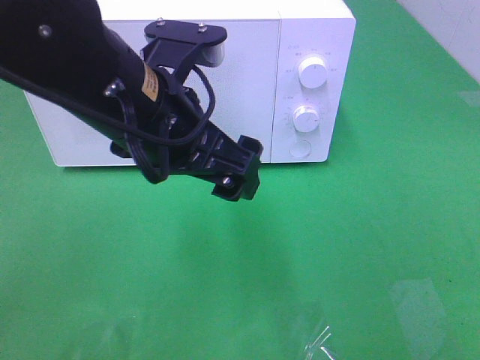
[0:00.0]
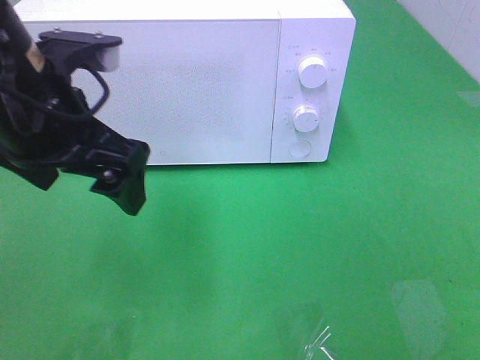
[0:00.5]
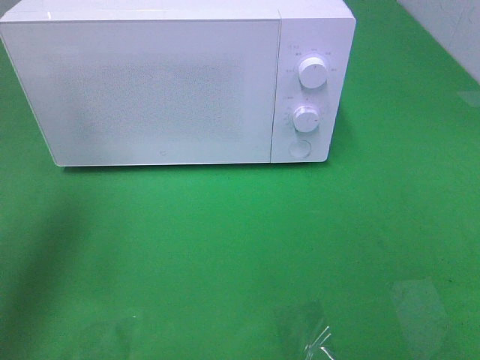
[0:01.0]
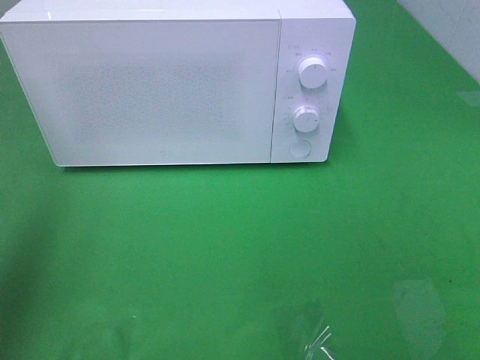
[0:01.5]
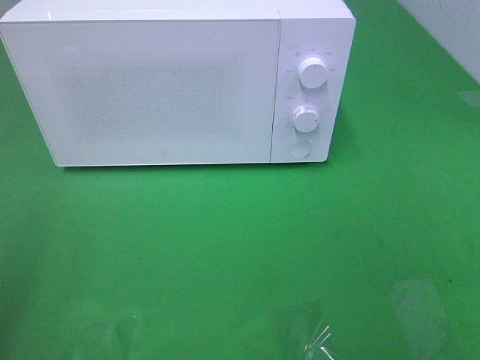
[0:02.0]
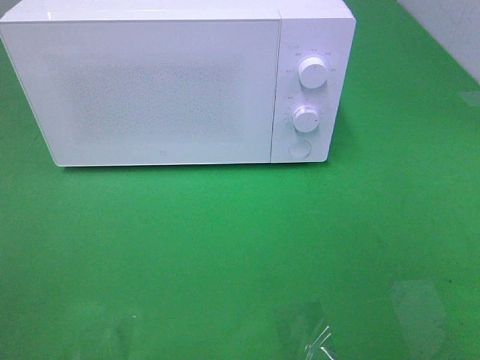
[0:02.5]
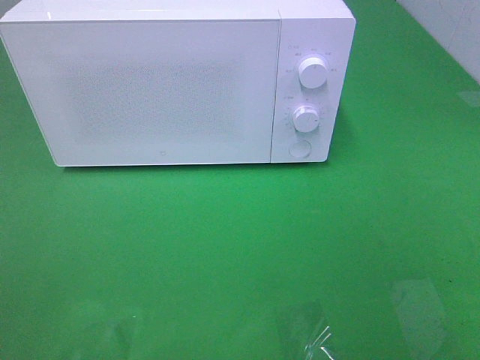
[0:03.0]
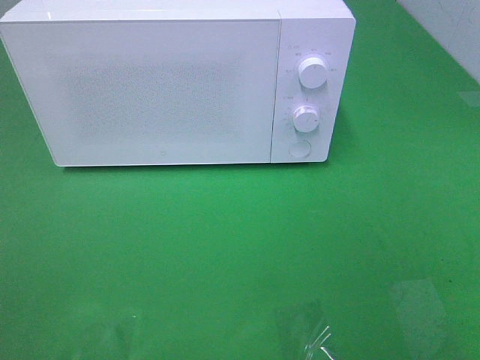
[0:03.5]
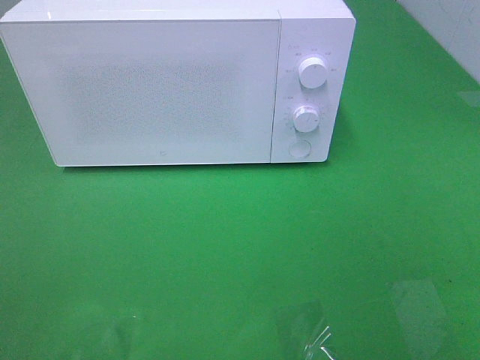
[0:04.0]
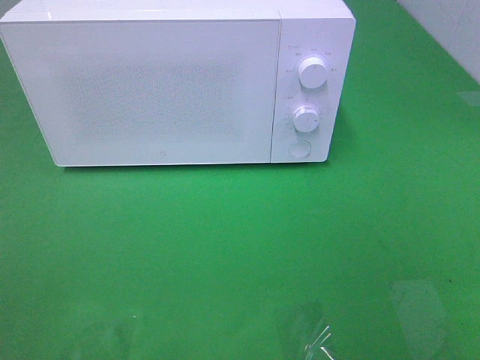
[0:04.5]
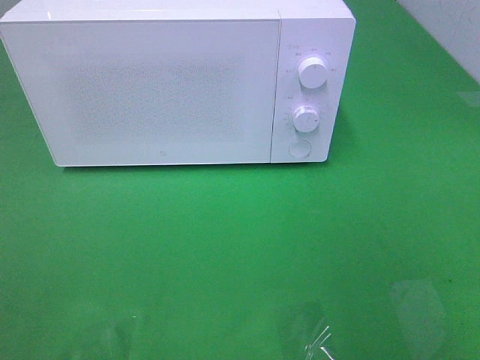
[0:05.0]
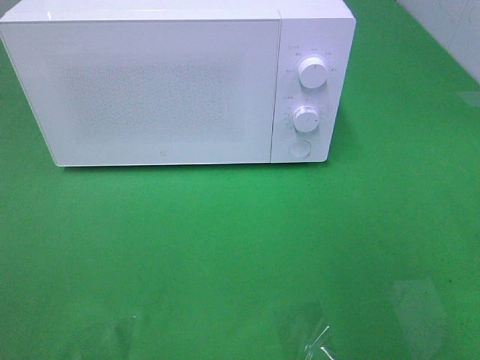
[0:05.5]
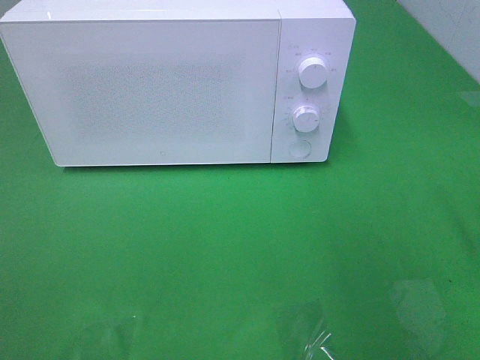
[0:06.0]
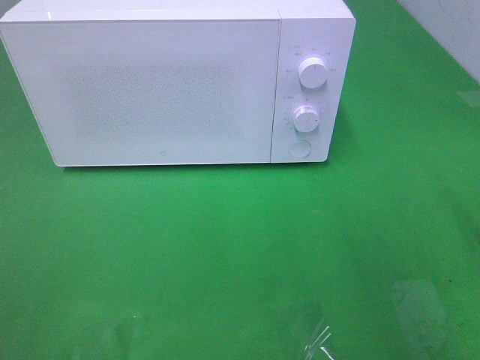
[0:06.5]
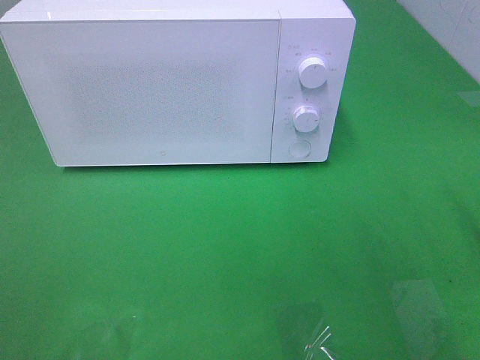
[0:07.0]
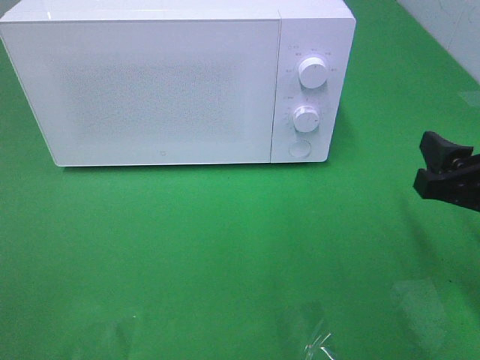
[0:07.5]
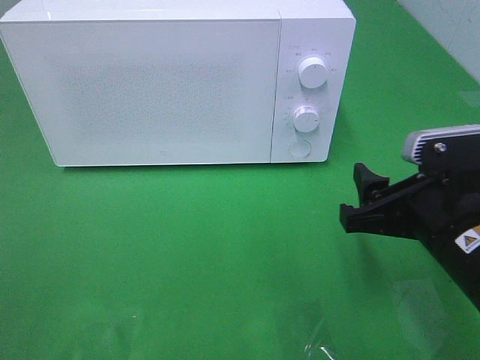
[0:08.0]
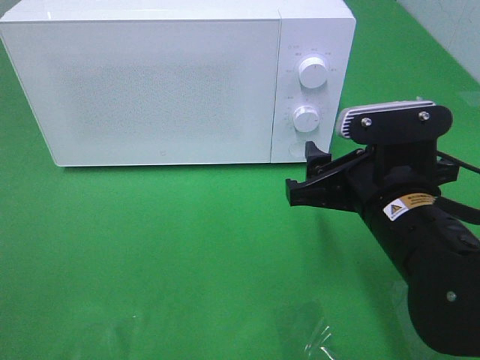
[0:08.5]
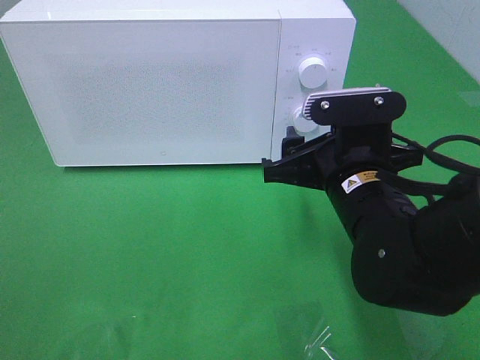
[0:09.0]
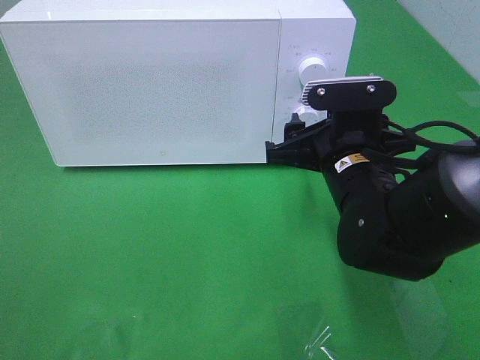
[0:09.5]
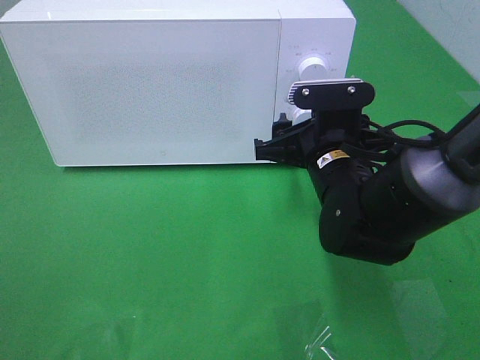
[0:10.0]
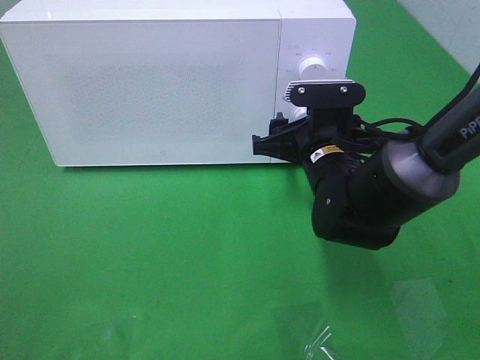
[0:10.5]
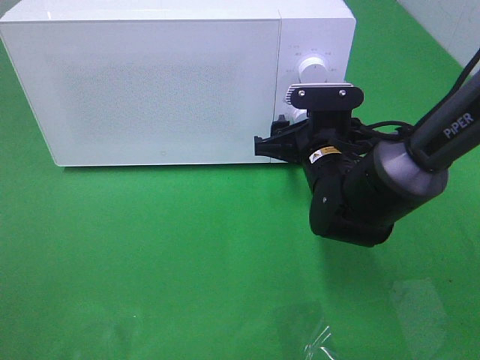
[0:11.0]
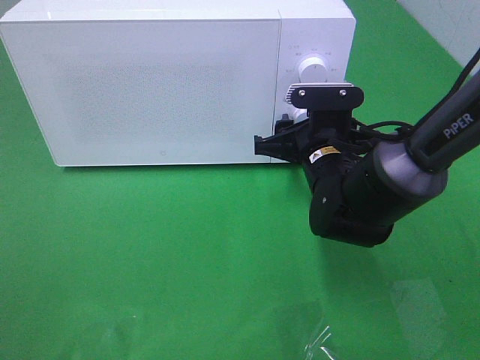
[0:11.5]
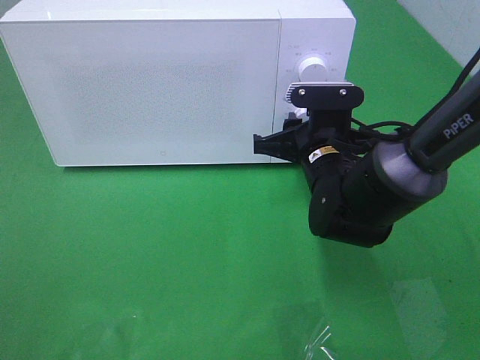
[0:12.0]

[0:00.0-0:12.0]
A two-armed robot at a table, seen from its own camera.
Task of the whole recording: Heat the burger.
0:00.0 to 0:02.0: The left gripper shifts roughly 30 cm to the left and backward.
0:06.0 to 0:08.0: The right gripper goes about 15 cm downward and to the left.
0:08.0 to 0:10.0: The right gripper is displaced forward and to the left by about 15 cm.
0:10.0 to 0:12.0: The right gripper closes its fingers.

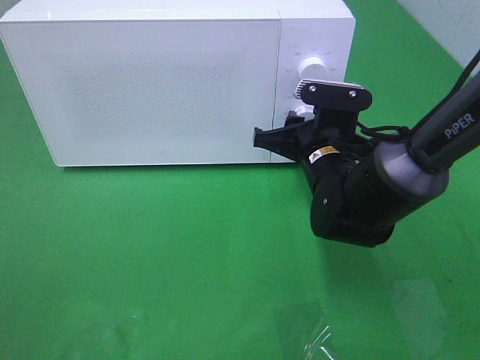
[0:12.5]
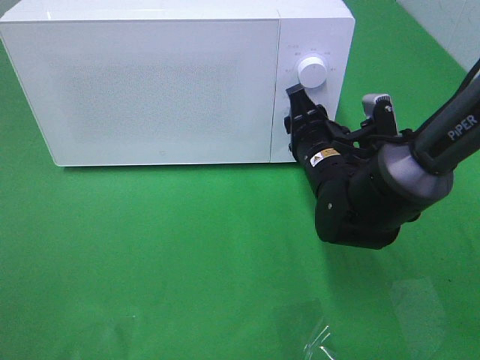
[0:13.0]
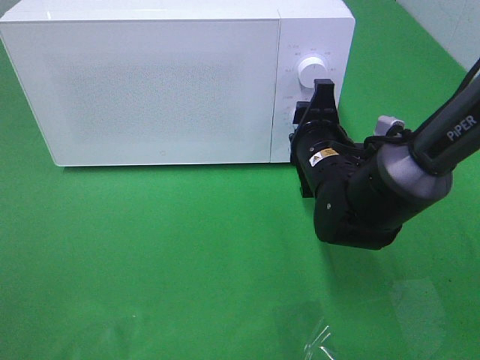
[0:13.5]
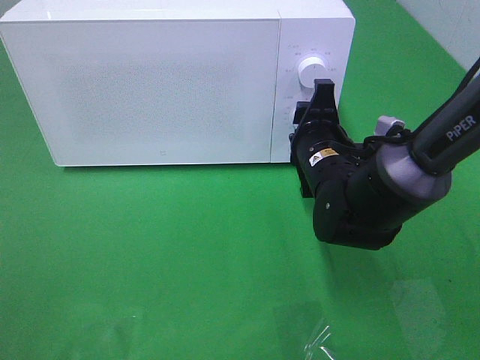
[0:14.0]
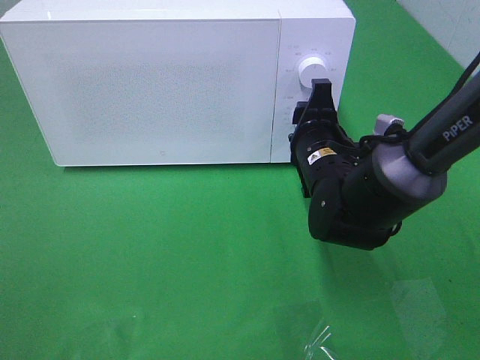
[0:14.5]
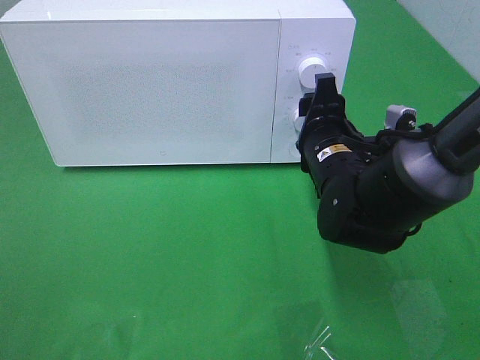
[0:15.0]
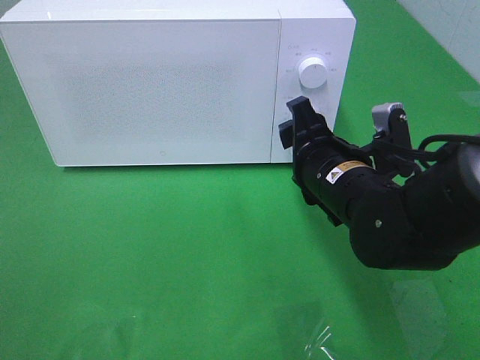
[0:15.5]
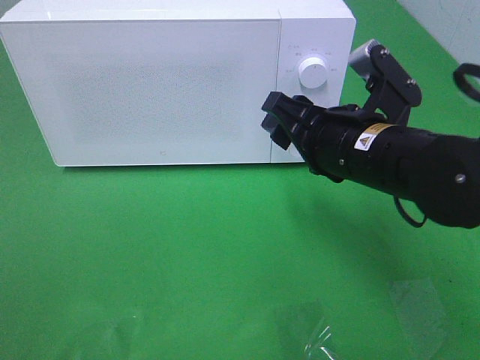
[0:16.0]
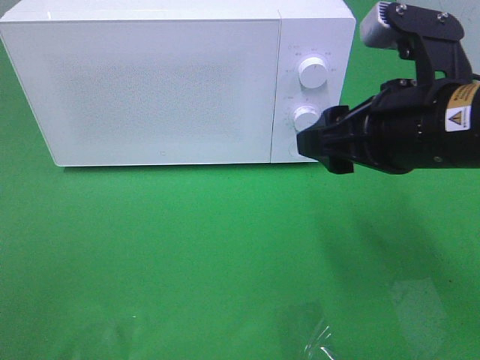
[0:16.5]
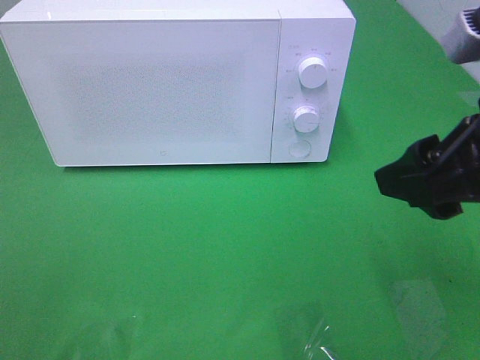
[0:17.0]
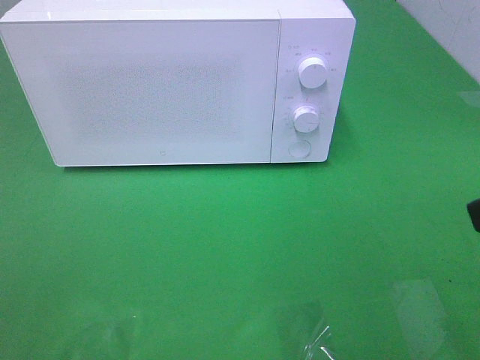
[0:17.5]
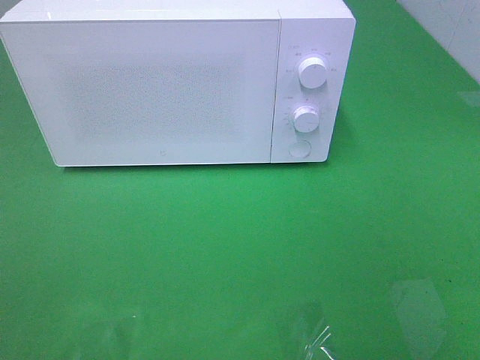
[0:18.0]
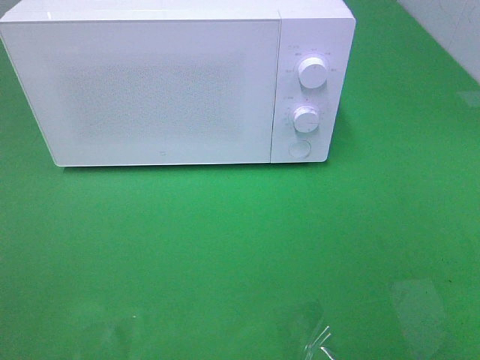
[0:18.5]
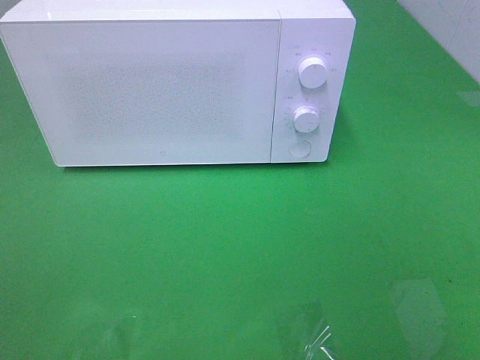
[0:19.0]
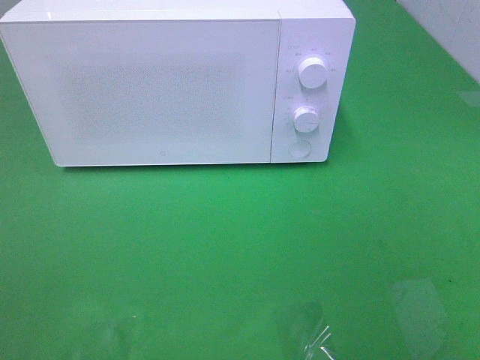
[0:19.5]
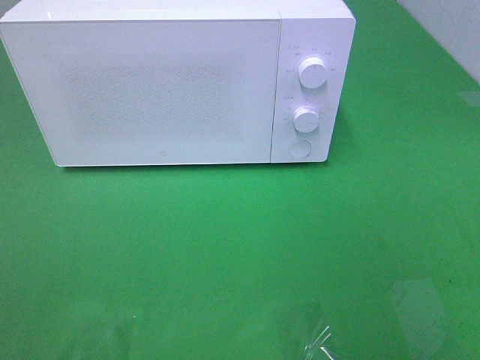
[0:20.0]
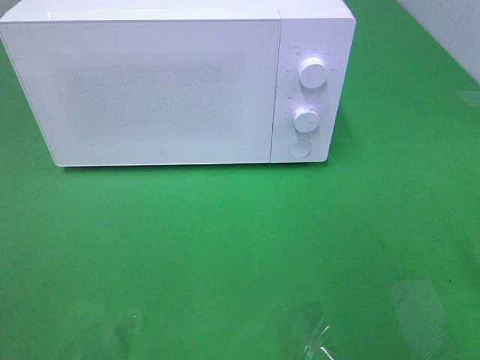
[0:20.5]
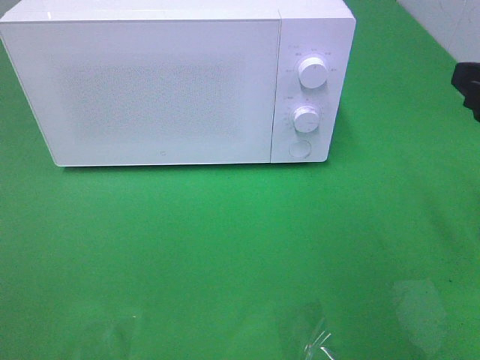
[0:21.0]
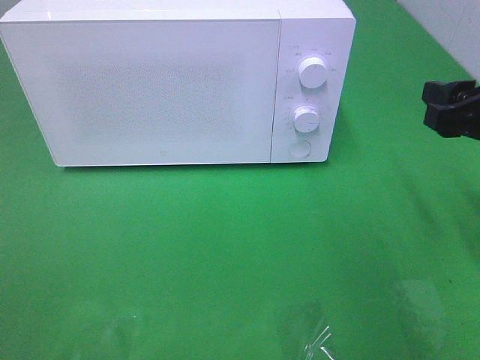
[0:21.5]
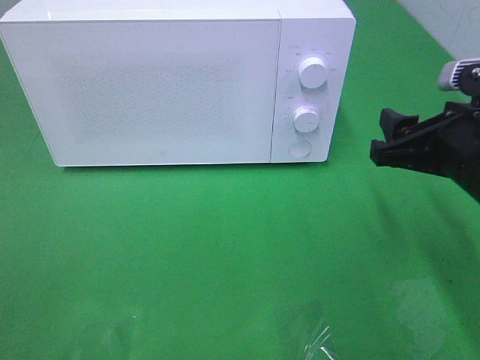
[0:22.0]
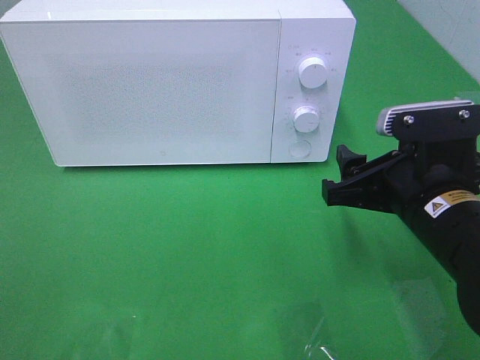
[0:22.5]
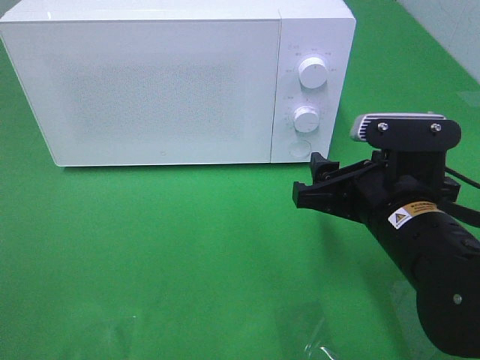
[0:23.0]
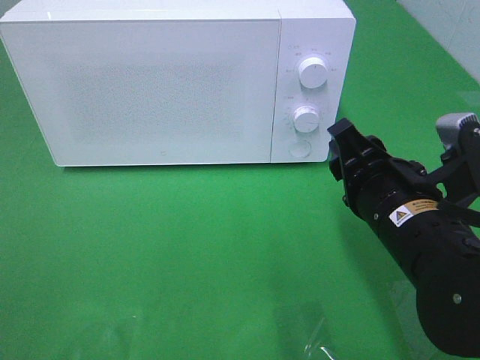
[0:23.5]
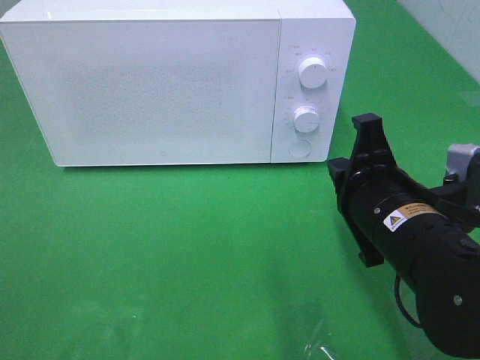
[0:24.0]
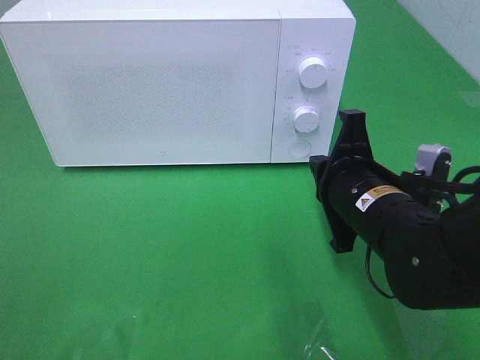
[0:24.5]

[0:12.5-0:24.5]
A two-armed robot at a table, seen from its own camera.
Task of the whole recording: Heat the burger.
Step, 0:12.5 to 0:15.0: Right hand: twist timer button.
0:14.5 to 0:16.5: The right gripper heads upward and backward, covering approximately 20 cm.
0:16.5 to 0:18.5: The right gripper goes approximately 25 cm backward and to the right.
0:20.5 to 0:22.5: The right gripper travels downward, to the left and forward by roughly 20 cm.
0:22.5 to 0:24.5: The right gripper ends up approximately 5 cm from where it was, and closes its fingers.

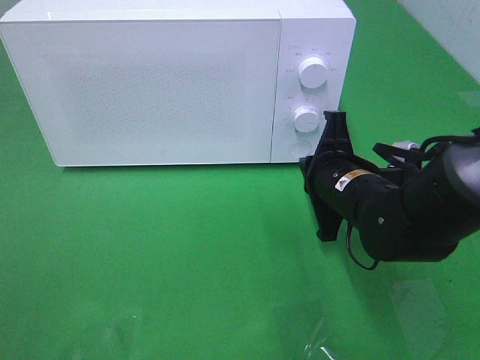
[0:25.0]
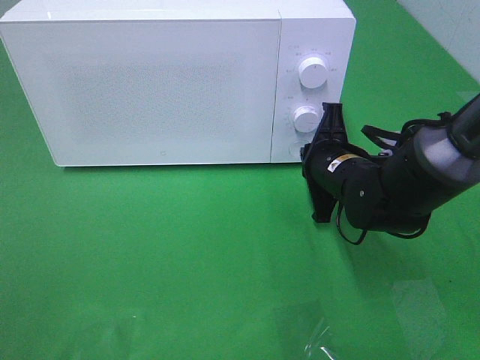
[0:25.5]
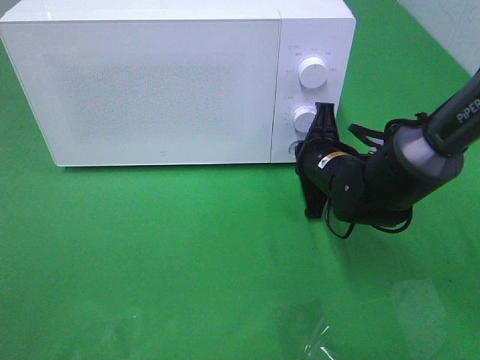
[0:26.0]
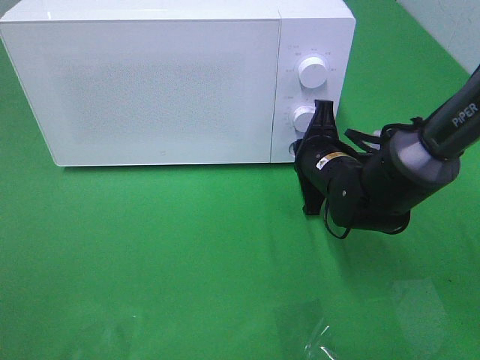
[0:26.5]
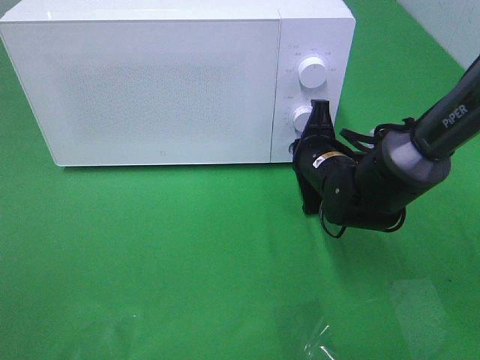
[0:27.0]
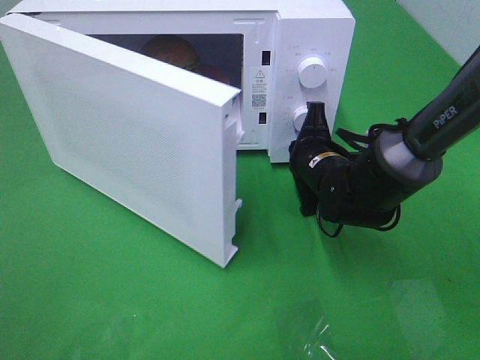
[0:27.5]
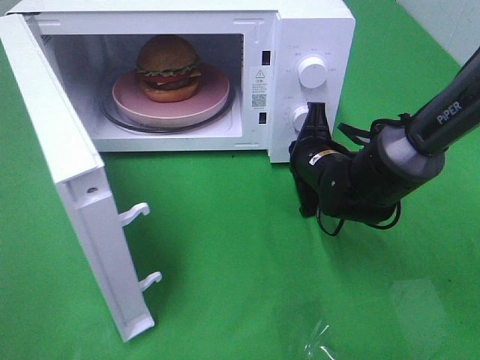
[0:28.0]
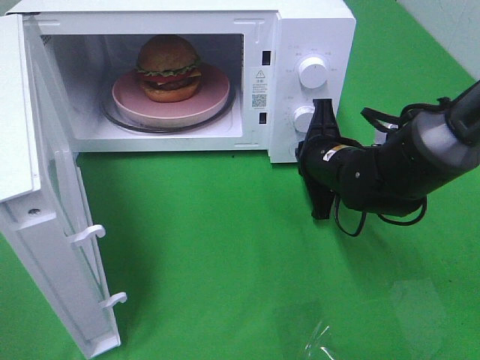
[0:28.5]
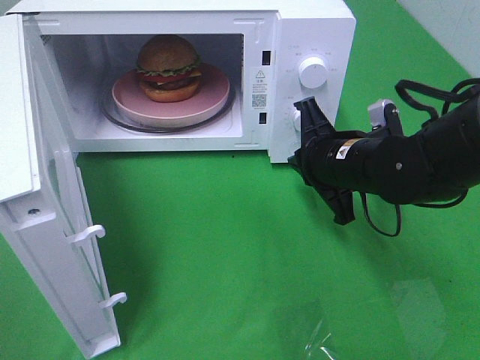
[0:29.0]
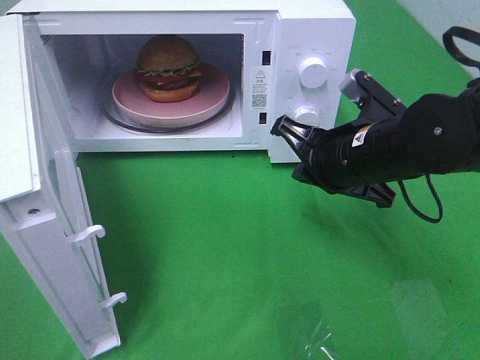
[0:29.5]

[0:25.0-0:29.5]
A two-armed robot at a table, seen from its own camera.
Task of the whole recording: Heat the burger.
Step, 0:25.0 to 0:28.5: Right hand: press the switch.
0:25.0 to 0:27.0: The right gripper heads forward, covering roughly 5 cm.
0:27.0 to 0:29.5: The right gripper heads upward and backward, covering approximately 10 cm.
